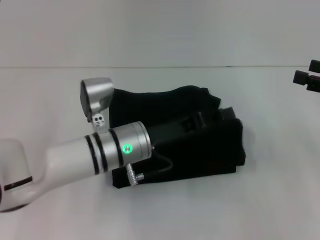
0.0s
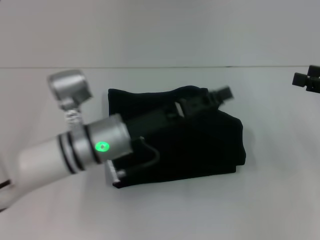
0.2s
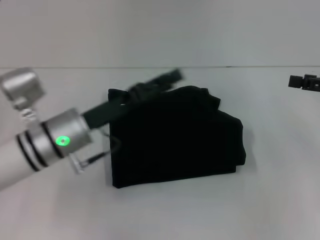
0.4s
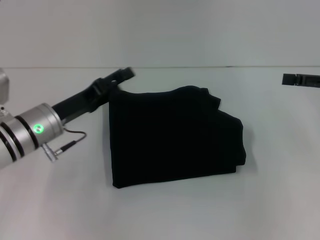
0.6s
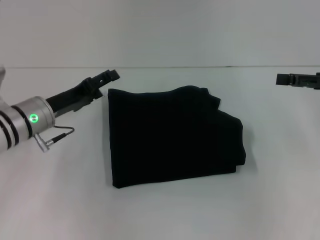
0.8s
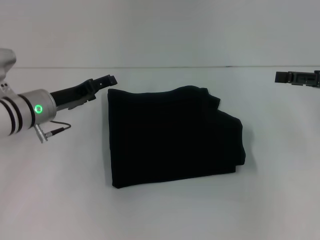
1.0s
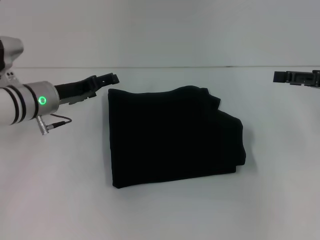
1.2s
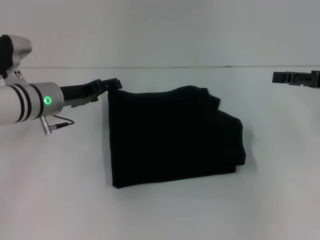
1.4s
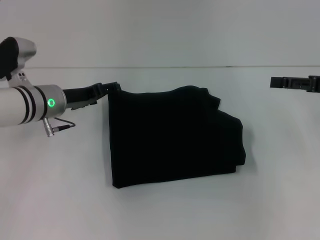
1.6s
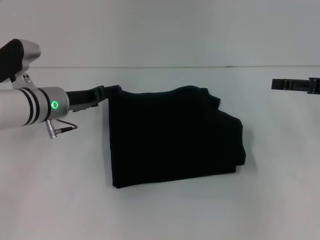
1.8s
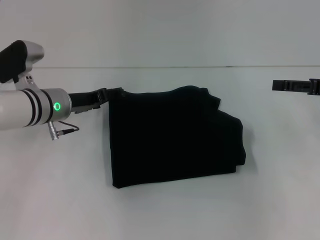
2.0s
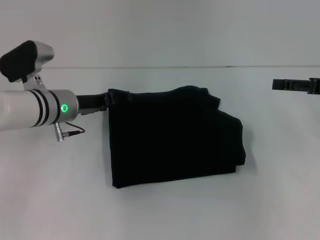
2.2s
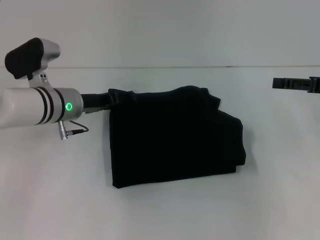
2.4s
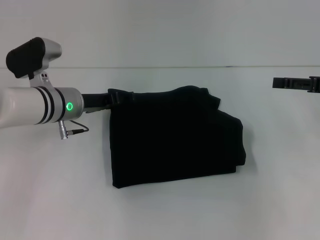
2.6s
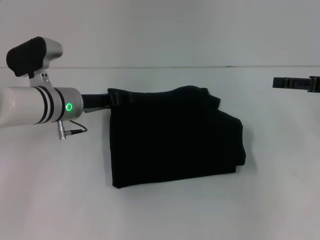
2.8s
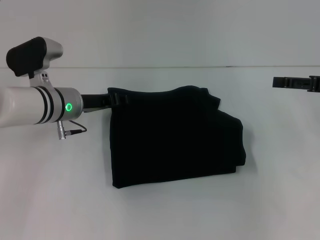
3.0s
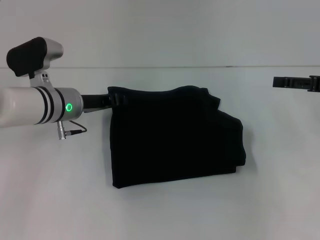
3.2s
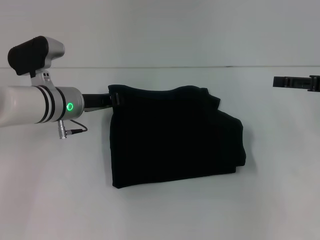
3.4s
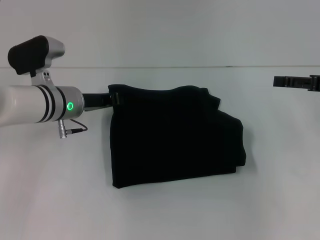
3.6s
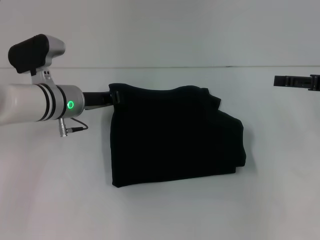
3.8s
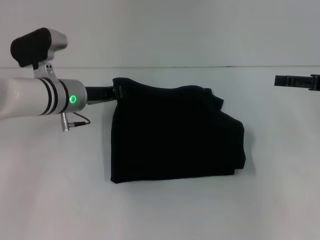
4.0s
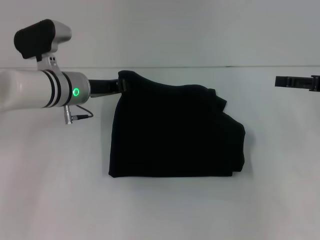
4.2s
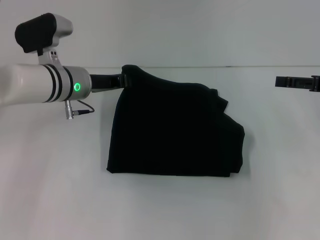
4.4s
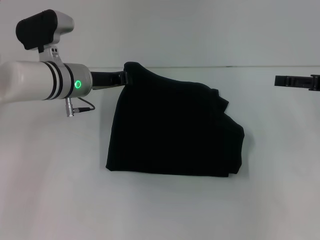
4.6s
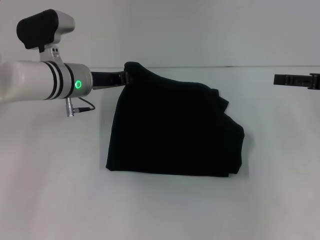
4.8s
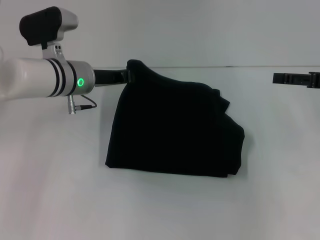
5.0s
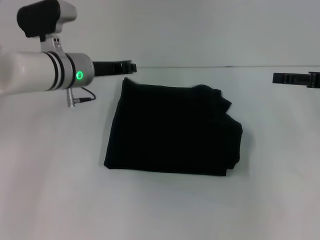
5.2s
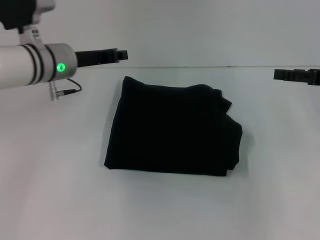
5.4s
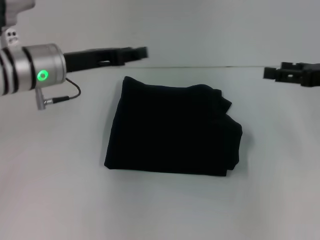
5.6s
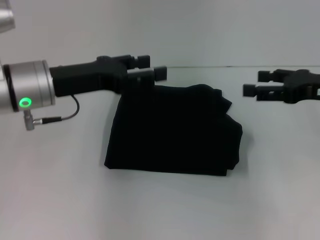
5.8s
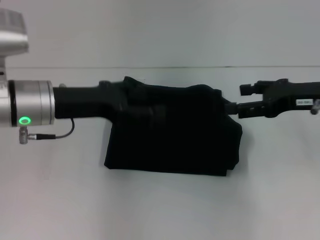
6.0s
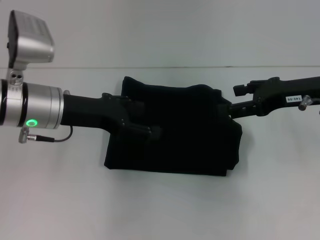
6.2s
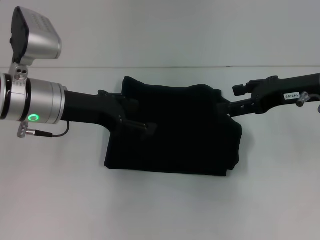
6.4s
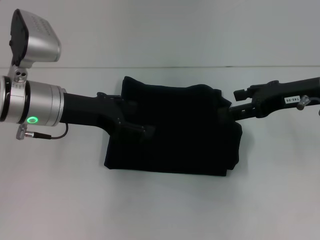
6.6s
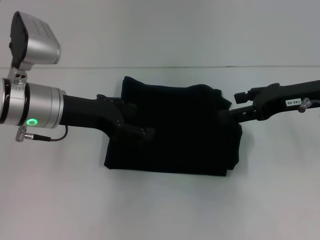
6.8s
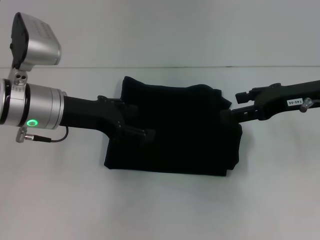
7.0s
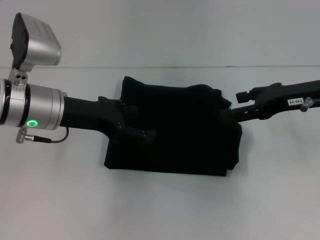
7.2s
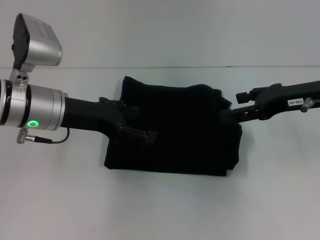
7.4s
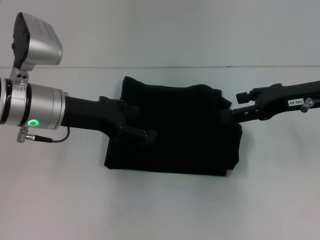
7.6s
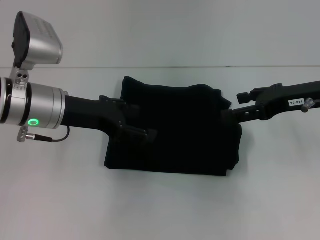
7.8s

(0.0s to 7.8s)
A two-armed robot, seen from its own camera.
0.0s - 1.6s: The left gripper goes about 15 cm to the left and forward, and opens its fingers.
1.6s - 3.2s: The left gripper closes its fingers.
3.2s - 4.6s: The left gripper closes.
4.6s - 6.2s: The right gripper is displaced to the left by about 10 cm; the left gripper moves backward, approximately 10 cm, and opens.
6.2s - 7.8s: The two grippers keep their place.

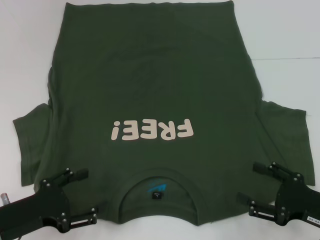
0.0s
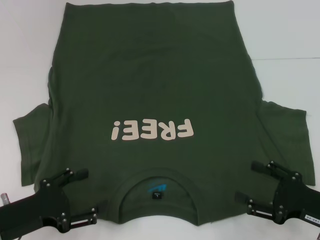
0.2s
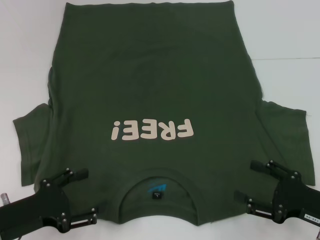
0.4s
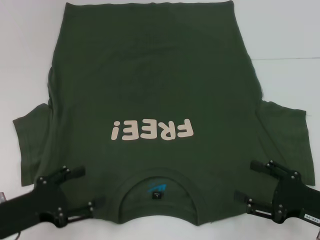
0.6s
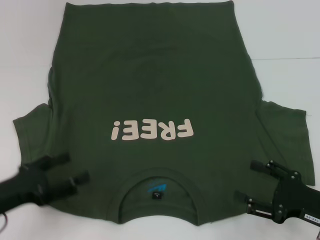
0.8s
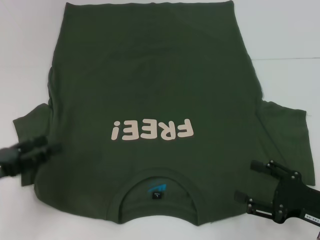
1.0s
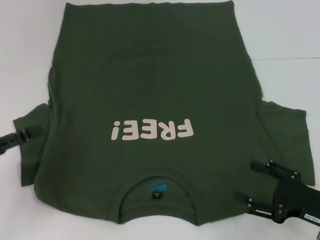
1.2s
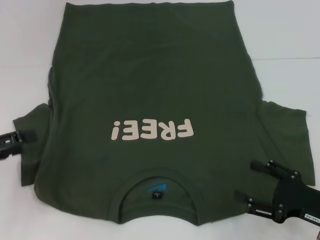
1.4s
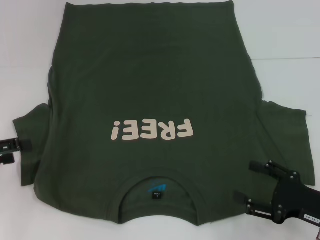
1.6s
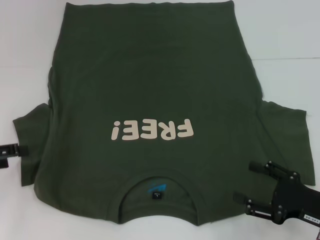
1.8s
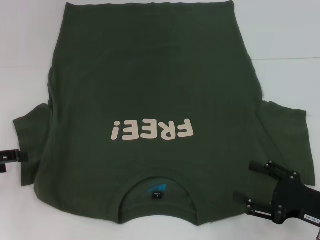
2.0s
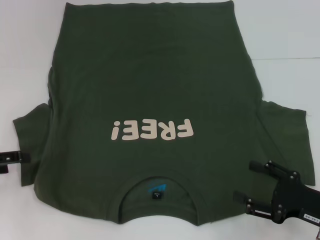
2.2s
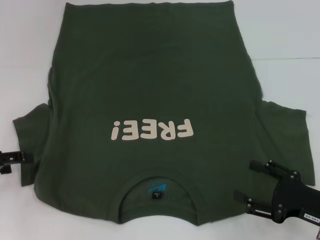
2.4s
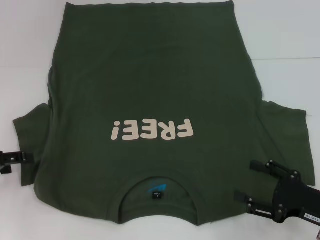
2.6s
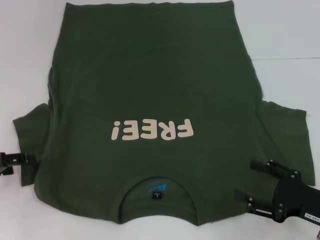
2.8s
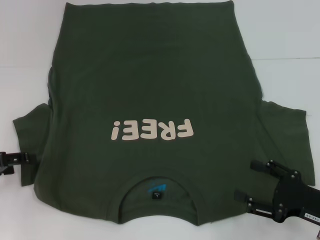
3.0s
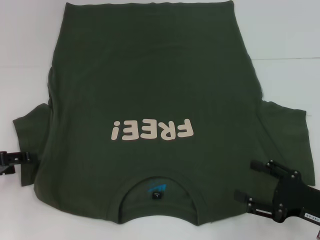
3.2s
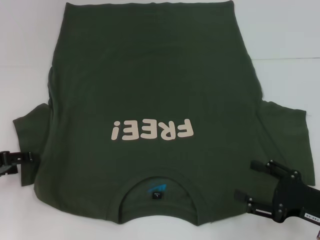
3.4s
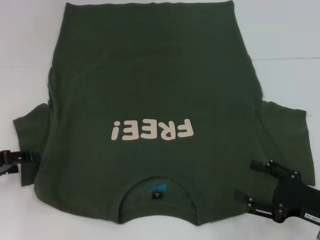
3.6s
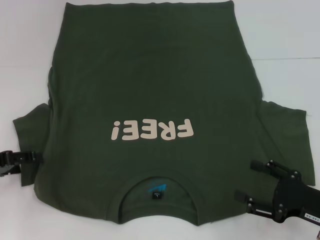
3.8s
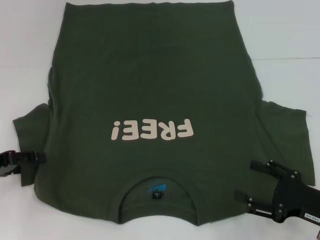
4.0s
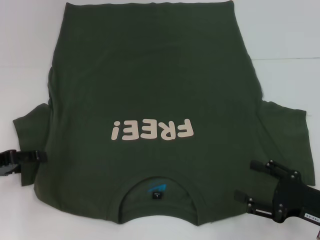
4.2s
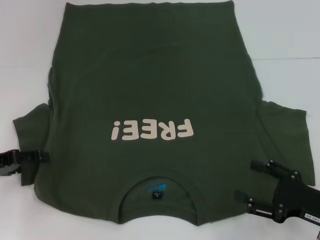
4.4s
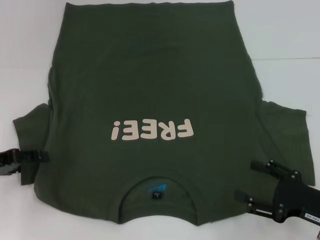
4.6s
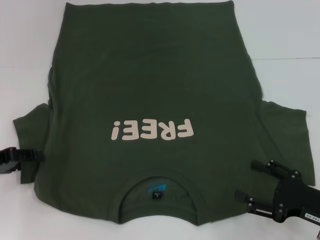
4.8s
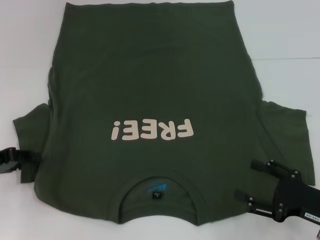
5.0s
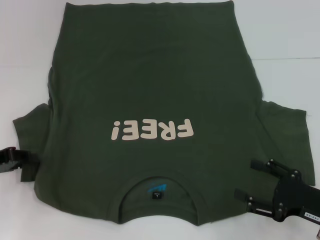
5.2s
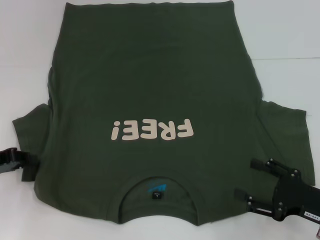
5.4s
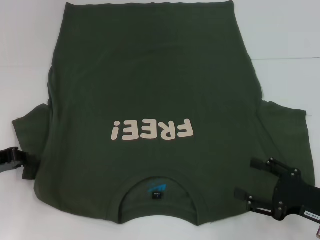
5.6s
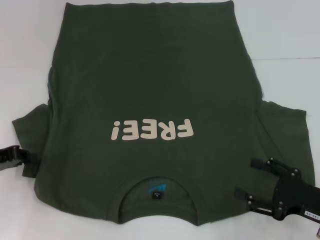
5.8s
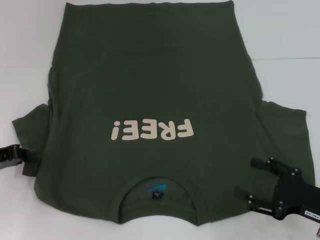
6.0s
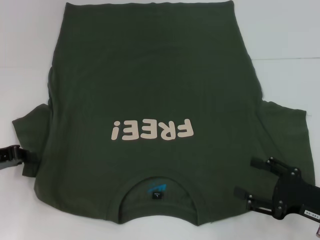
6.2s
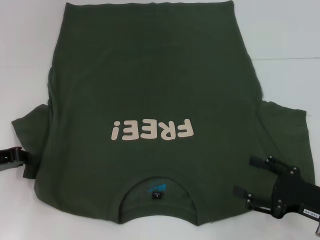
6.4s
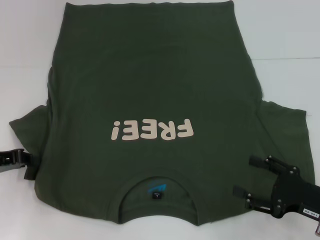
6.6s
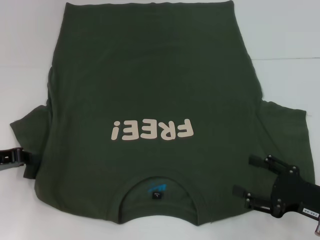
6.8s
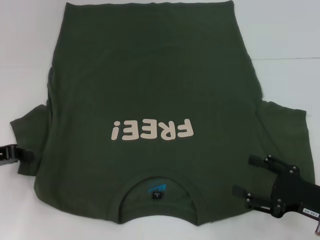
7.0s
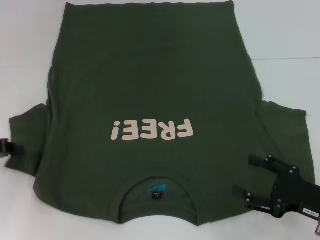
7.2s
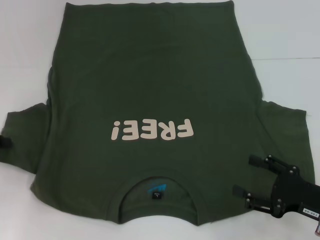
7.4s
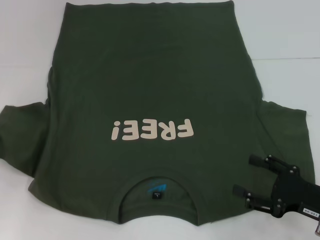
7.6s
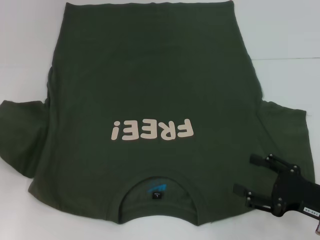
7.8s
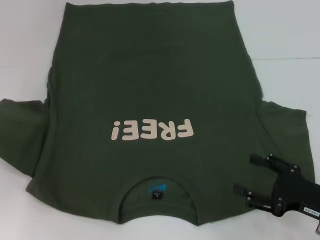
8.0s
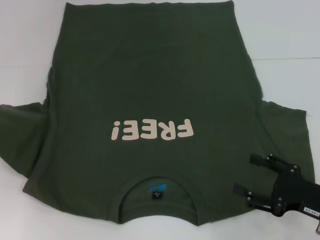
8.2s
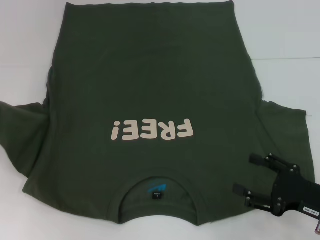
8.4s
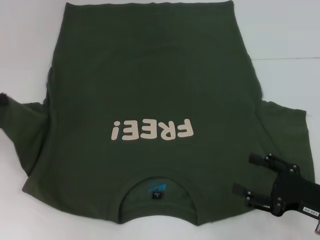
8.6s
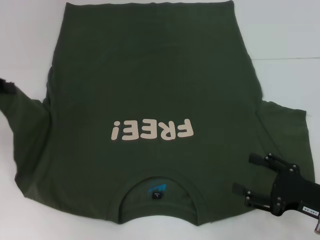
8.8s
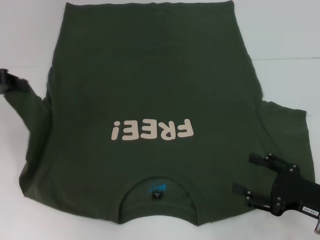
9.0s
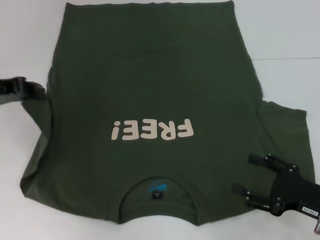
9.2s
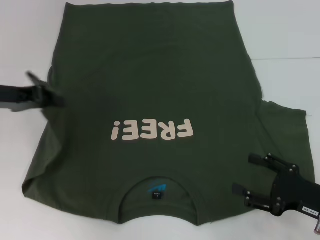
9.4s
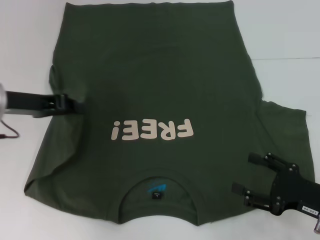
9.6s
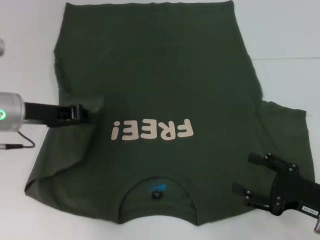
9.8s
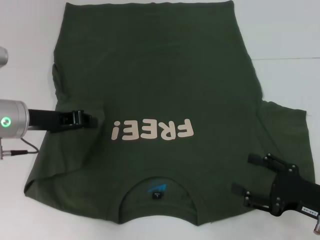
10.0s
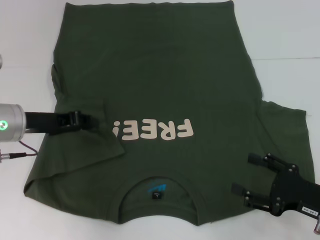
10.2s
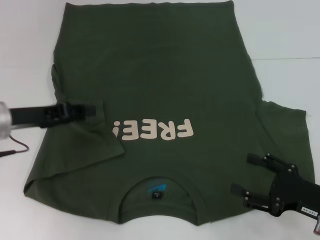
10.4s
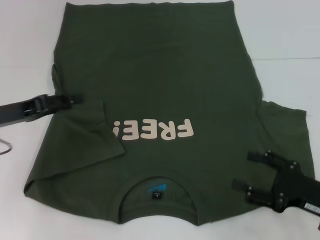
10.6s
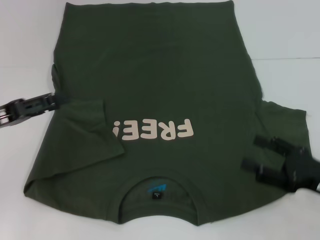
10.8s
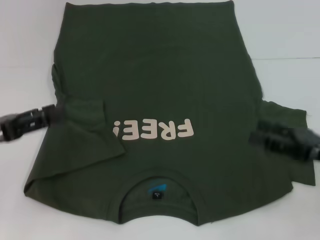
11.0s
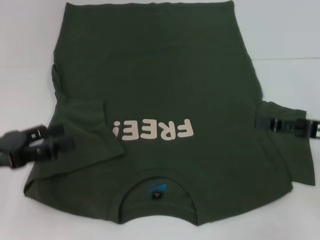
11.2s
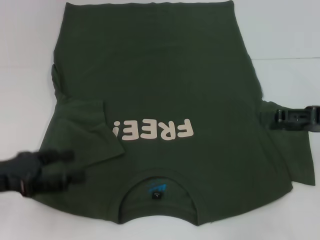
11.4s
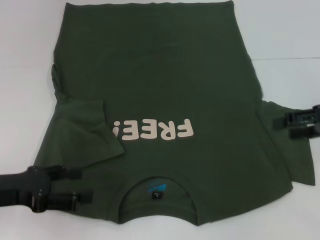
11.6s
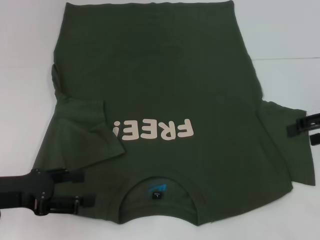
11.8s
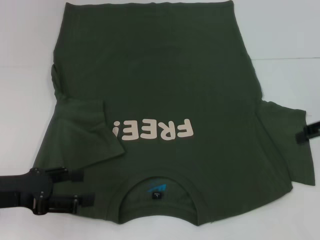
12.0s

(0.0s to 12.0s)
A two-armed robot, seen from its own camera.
Step, 0.0s - 10.4s: Fold the bottom left sleeve with your left hand.
0.0s - 1.6s: The left gripper is displaced to the left, upward and forward by approximately 15 cm.
1.6s - 3.0s: The grippers stay close to where they were, moving slightly.
4.4s - 6.0s: The left gripper closes.
6.0s - 7.6s: The left gripper shifts by roughly 5 cm.
7.6s - 9.0s: The left gripper shifts some 5 cm upward.
9.0s - 10.4s: The left gripper travels to the right and downward by roughly 10 cm.
10.4s - 12.0s: The right gripper is displaced upward and forward by approximately 20 cm. Meanwhile the left gripper goes some 10 cm backward, and opens.

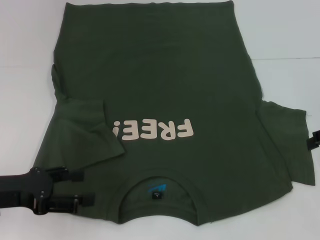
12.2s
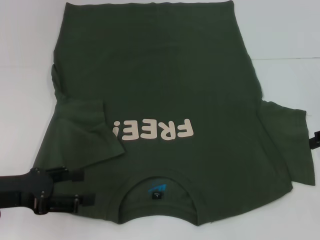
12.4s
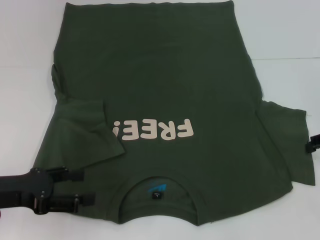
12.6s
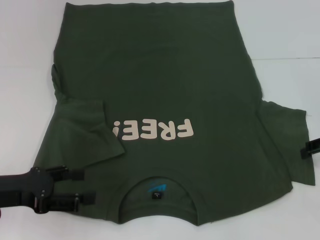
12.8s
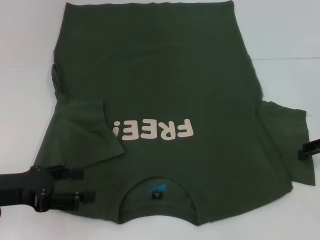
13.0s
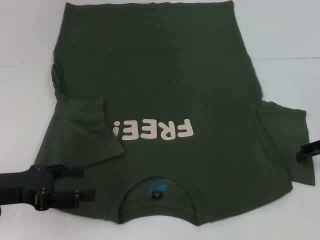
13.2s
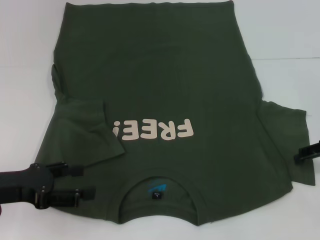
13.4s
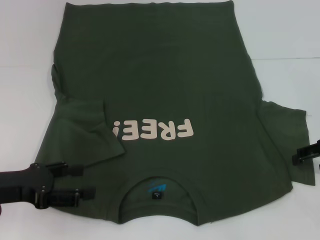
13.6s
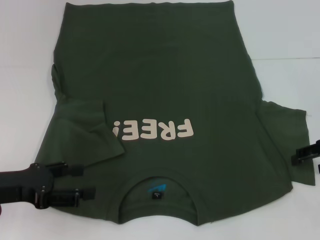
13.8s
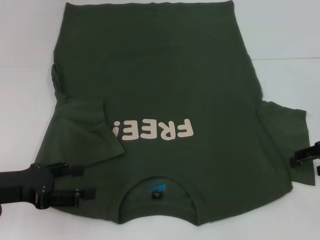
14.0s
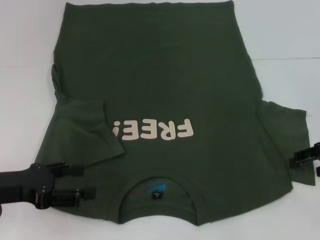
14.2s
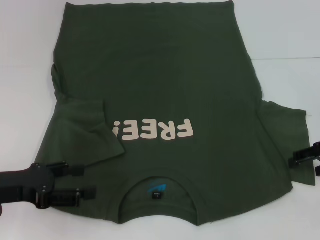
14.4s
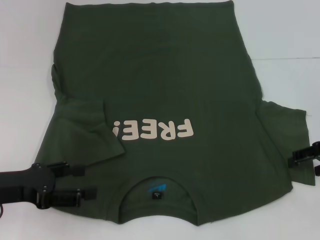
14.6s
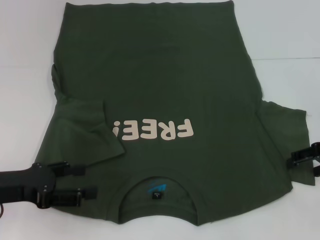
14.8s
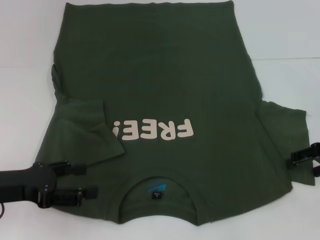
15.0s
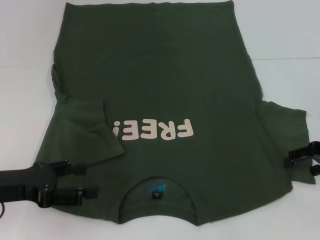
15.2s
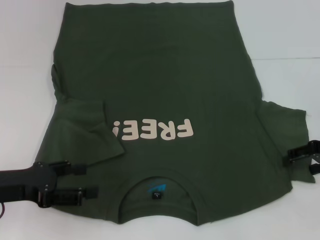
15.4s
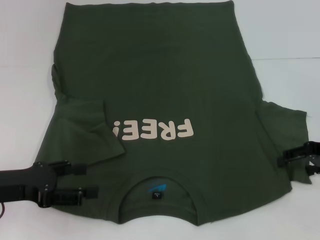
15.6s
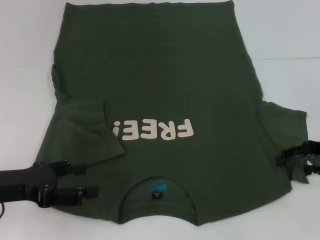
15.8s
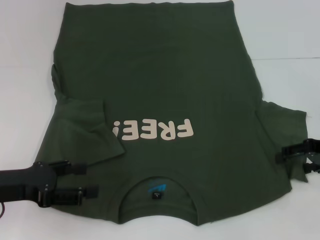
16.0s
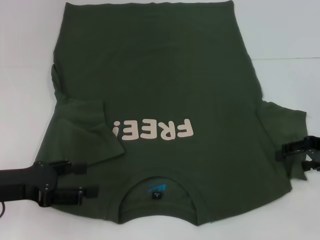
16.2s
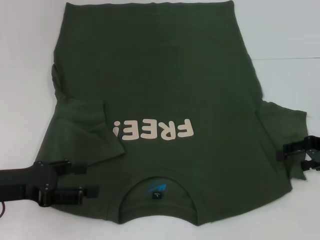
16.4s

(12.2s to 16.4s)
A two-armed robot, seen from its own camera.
12.2s - 13.6s: The right gripper is displaced downward by some 5 cm.
13.6s - 15.0s: The two grippers keep their place.
15.0s - 16.4s: The grippers move only a little.
